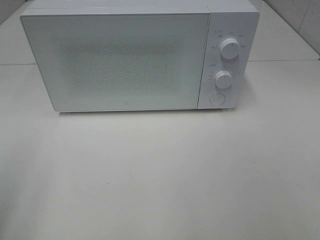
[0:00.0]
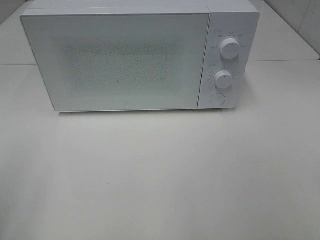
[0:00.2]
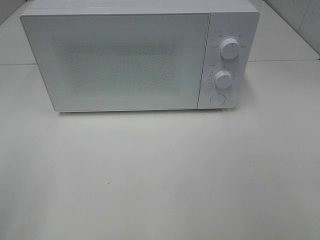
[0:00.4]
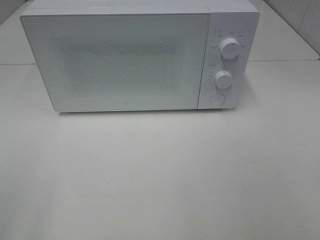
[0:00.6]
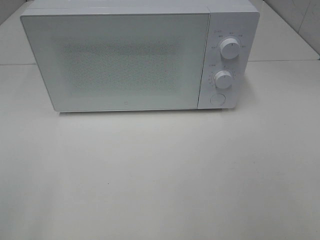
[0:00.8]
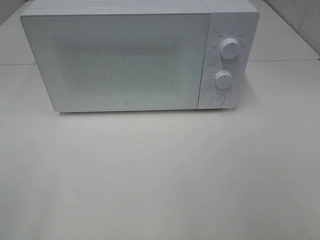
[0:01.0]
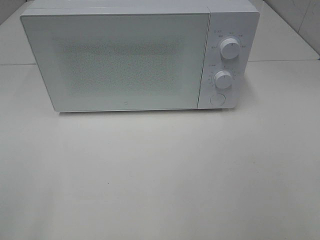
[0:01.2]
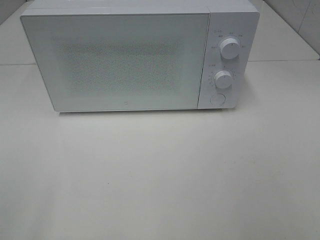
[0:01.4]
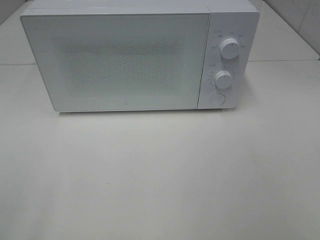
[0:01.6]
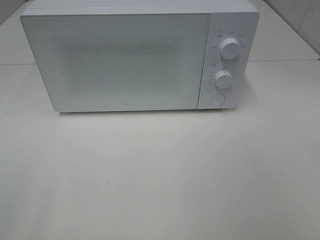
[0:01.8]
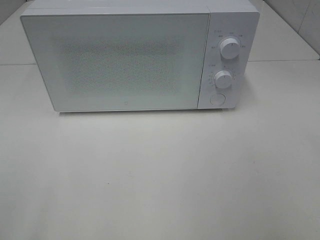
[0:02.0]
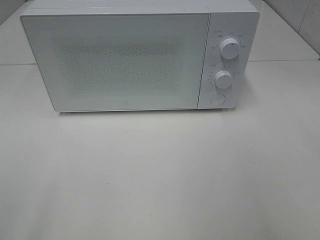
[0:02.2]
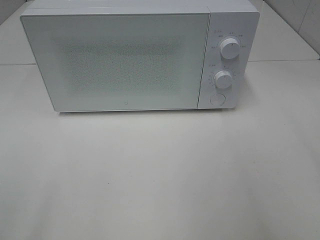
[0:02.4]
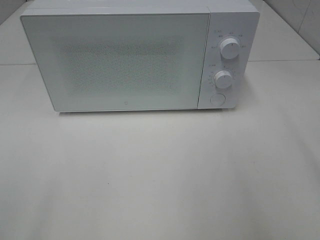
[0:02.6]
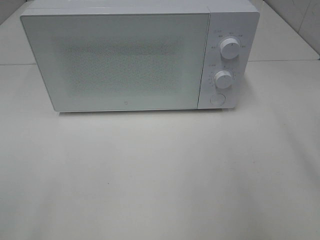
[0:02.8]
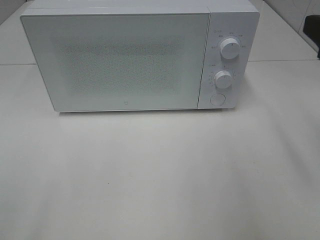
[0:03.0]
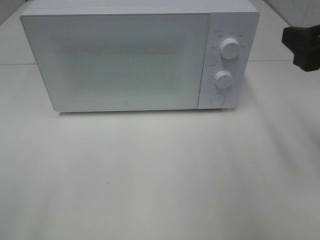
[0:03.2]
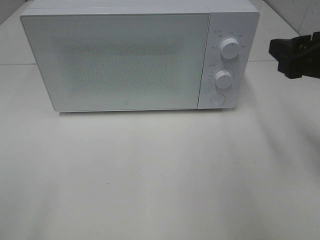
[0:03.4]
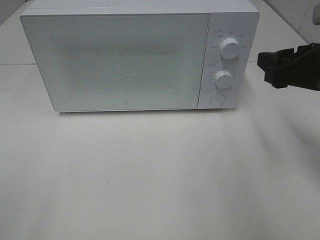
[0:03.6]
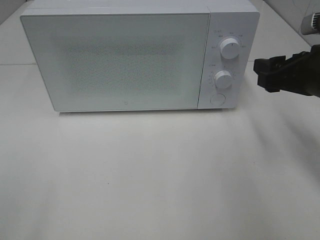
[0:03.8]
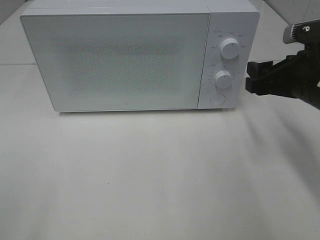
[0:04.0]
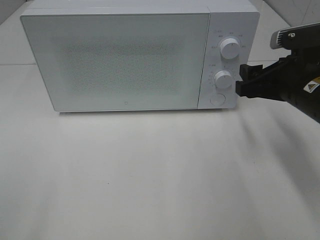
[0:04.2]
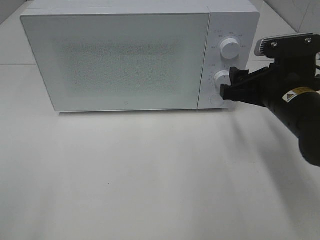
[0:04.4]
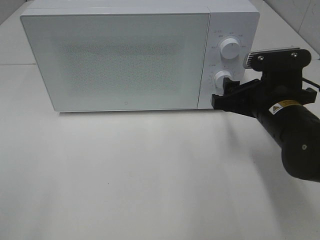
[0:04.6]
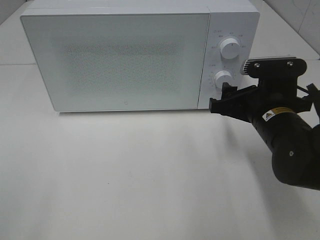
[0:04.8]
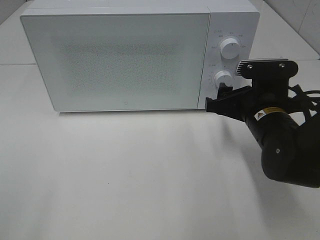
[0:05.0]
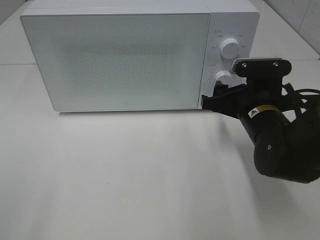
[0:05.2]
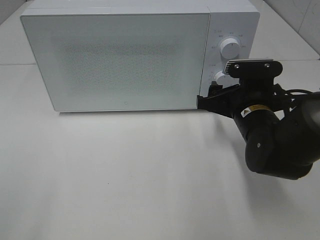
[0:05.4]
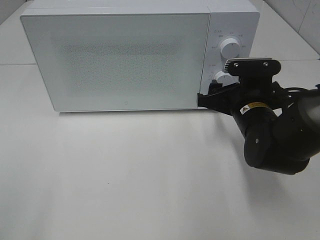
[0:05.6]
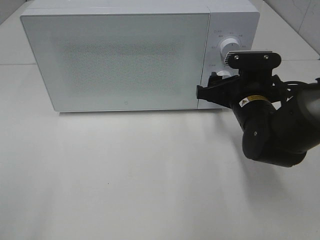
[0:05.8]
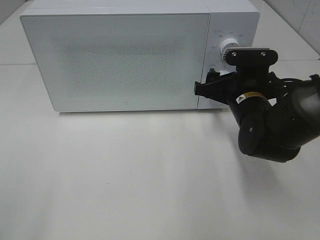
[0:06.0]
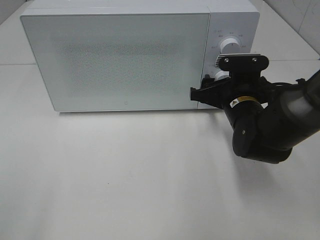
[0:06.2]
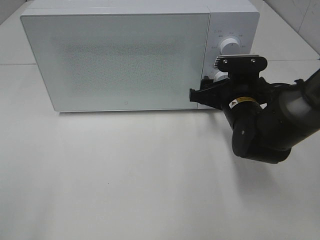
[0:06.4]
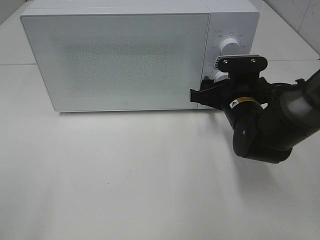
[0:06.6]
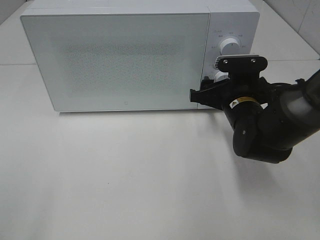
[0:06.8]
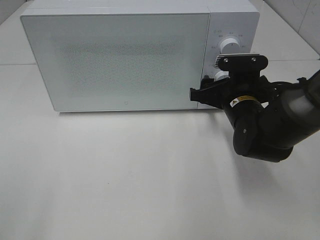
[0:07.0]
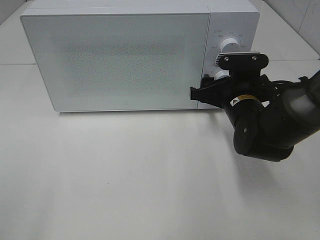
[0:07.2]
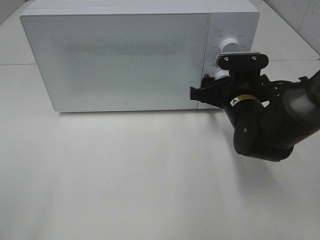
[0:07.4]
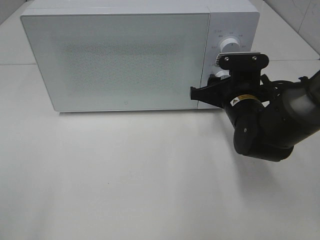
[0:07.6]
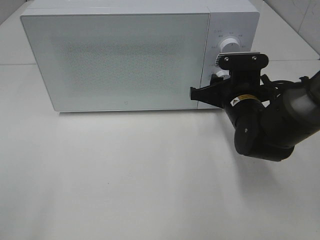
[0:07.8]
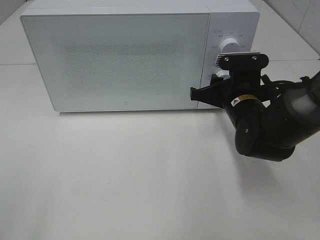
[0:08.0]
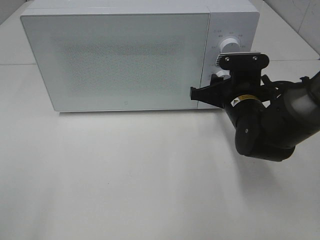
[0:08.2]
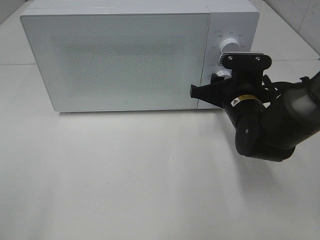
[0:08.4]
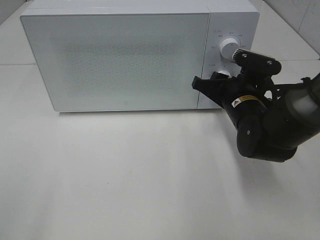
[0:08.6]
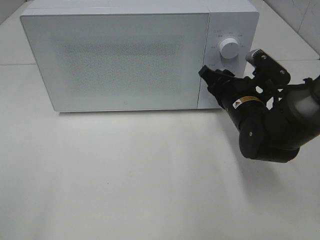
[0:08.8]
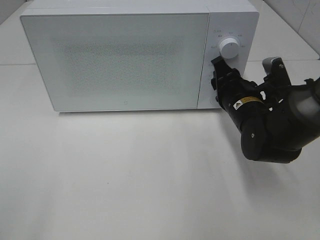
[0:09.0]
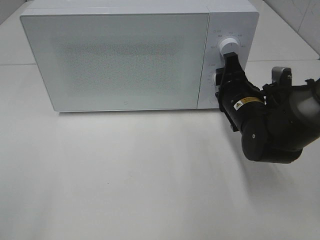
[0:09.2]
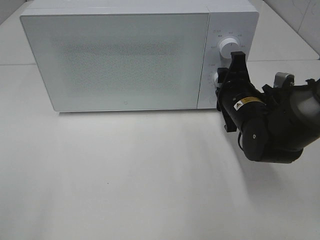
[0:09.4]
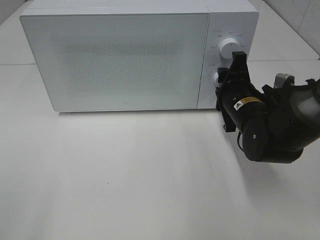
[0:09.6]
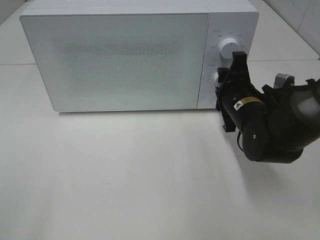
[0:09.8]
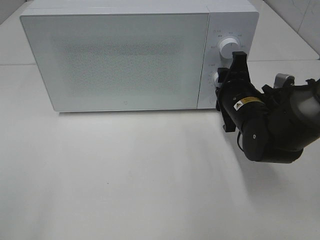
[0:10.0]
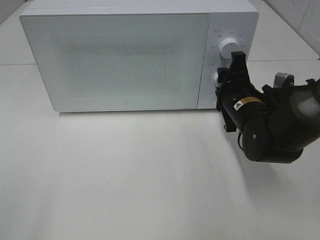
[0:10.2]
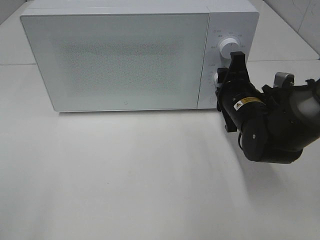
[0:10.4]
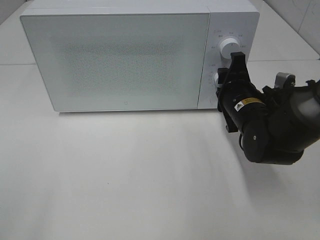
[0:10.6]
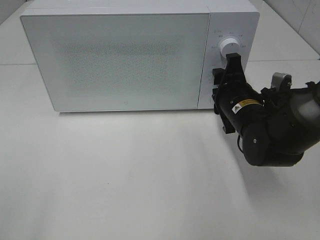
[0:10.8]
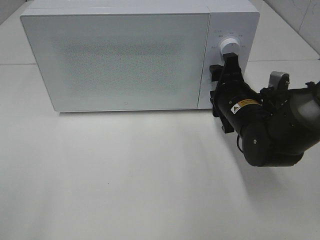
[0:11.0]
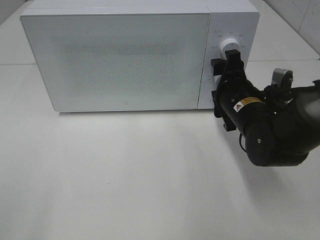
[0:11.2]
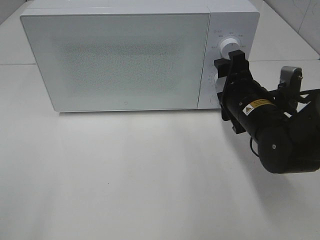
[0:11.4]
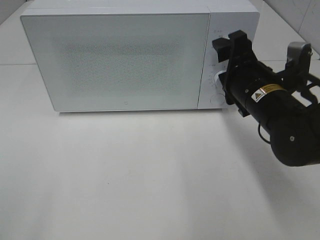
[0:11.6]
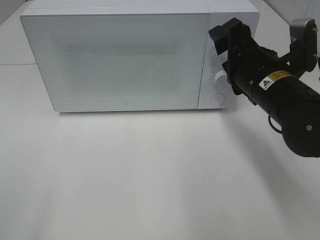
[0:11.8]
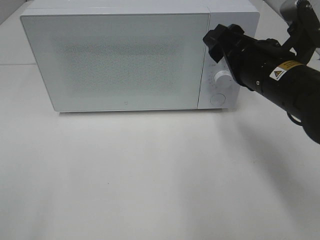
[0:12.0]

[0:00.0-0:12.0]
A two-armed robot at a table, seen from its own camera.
Task of the whole recording: Heat the burger.
Step, 0:00.0 to 0:10.8: Right hand: twist timer button.
0:03.0 to 0:04.4: The right gripper goes some 15 cm downward, forward and to the left.
0:04.4 to 0:06.0: The right gripper heads forward, covering about 5 cm.
0:06.0 to 0:07.6: The grippers stay close to where they were, moving slightly.
0:10.4 to 0:12.0: The right gripper heads upward and backward, covering approximately 10 cm.

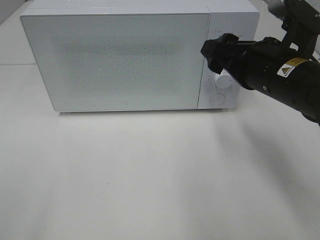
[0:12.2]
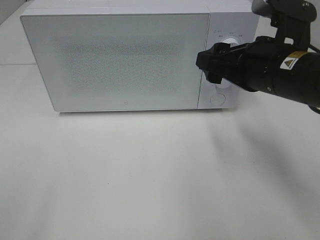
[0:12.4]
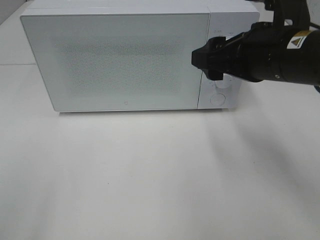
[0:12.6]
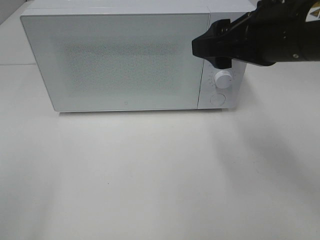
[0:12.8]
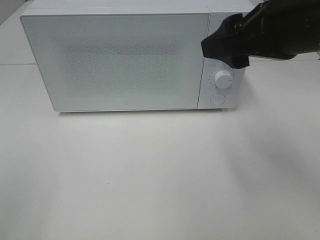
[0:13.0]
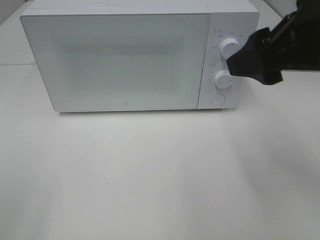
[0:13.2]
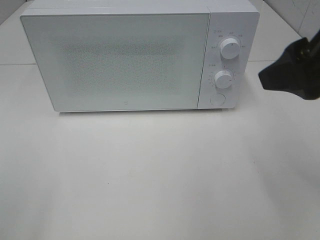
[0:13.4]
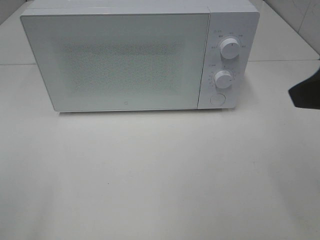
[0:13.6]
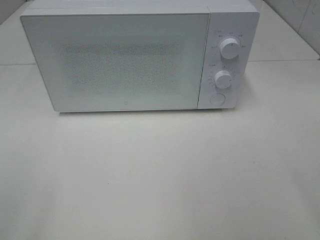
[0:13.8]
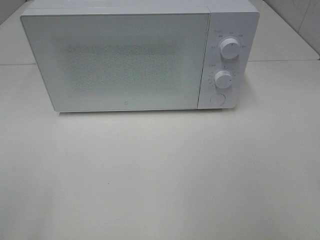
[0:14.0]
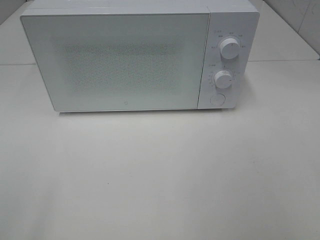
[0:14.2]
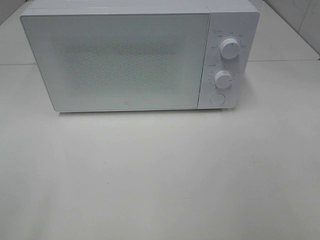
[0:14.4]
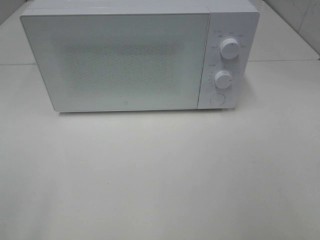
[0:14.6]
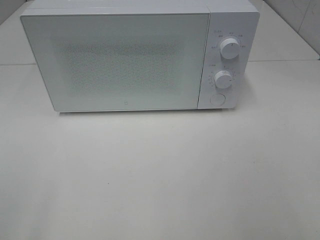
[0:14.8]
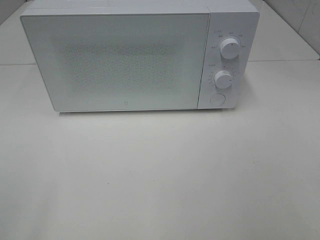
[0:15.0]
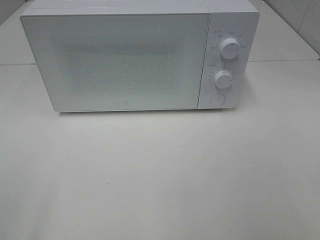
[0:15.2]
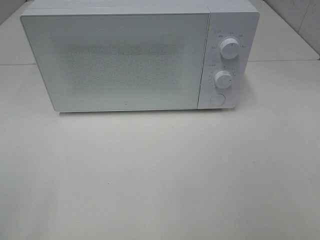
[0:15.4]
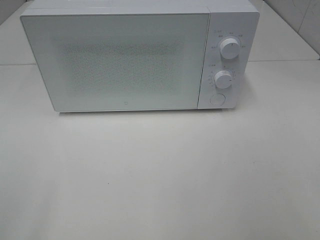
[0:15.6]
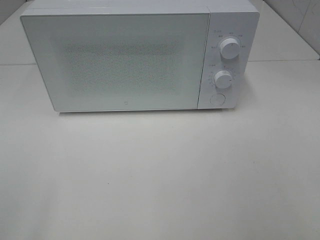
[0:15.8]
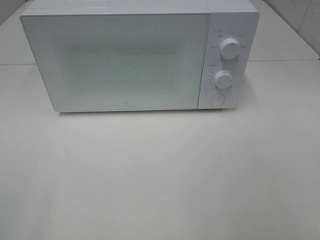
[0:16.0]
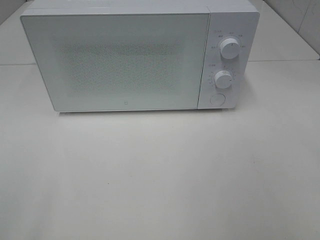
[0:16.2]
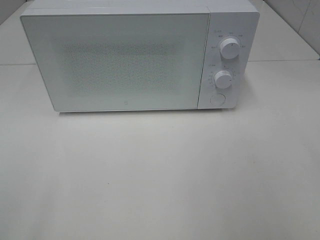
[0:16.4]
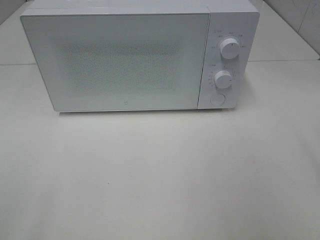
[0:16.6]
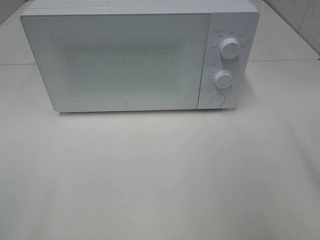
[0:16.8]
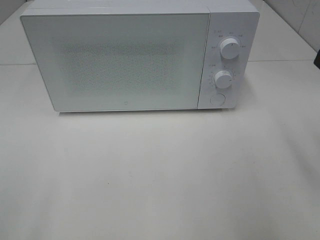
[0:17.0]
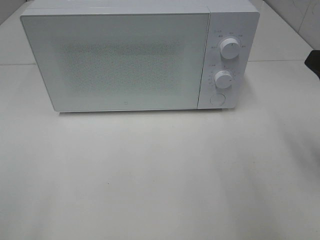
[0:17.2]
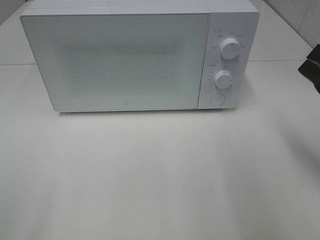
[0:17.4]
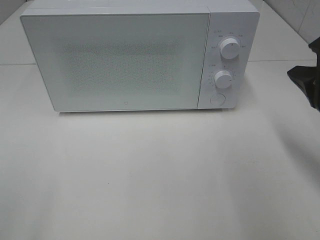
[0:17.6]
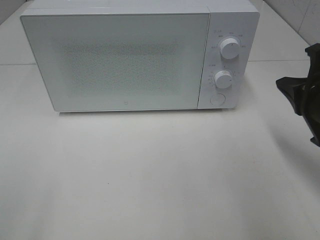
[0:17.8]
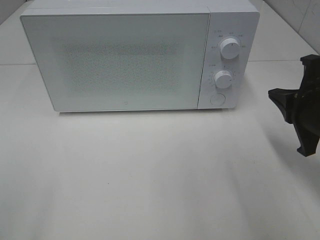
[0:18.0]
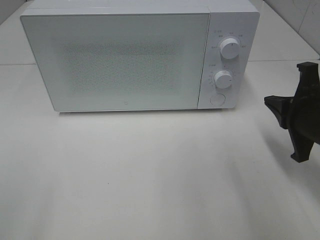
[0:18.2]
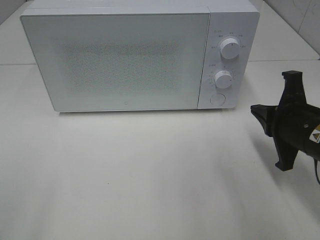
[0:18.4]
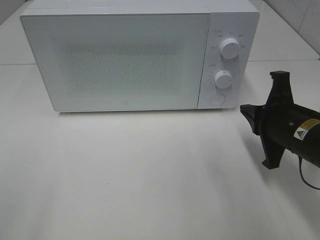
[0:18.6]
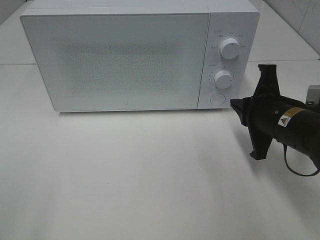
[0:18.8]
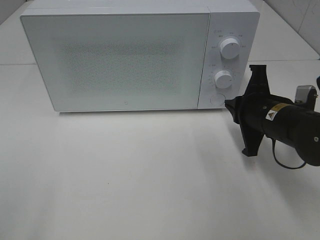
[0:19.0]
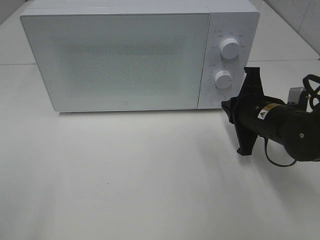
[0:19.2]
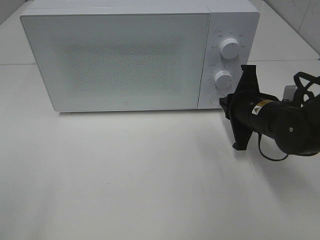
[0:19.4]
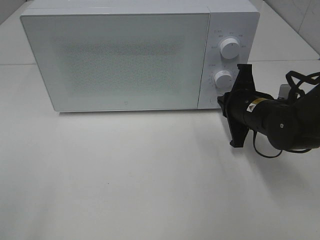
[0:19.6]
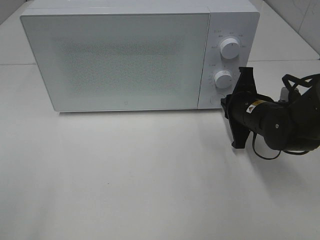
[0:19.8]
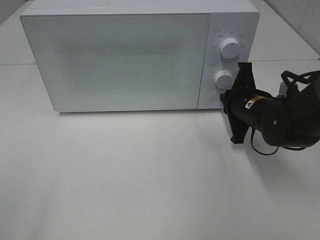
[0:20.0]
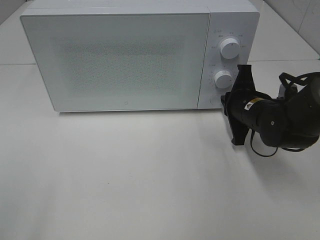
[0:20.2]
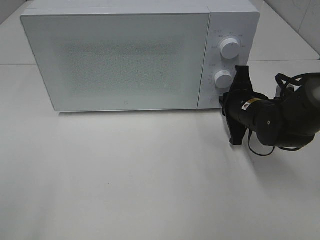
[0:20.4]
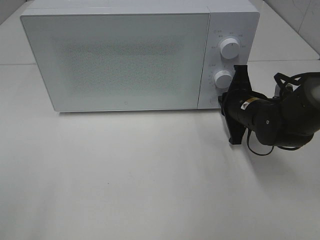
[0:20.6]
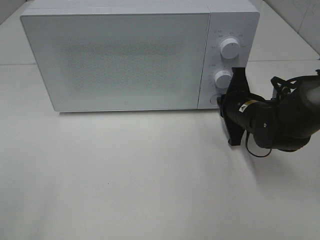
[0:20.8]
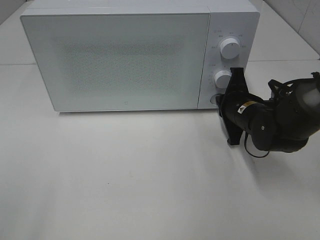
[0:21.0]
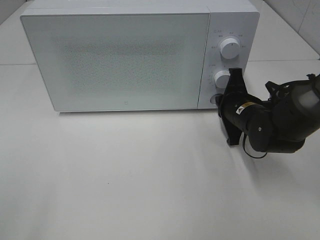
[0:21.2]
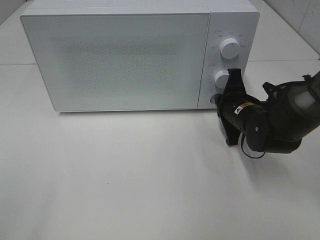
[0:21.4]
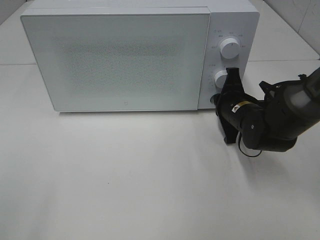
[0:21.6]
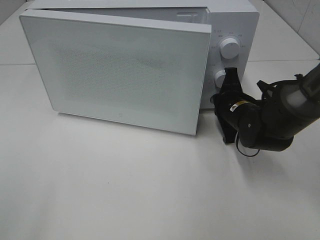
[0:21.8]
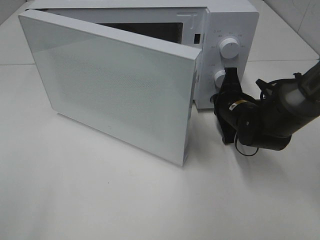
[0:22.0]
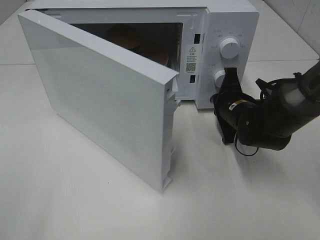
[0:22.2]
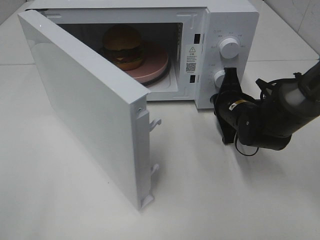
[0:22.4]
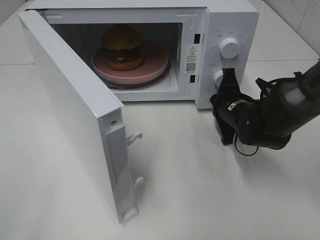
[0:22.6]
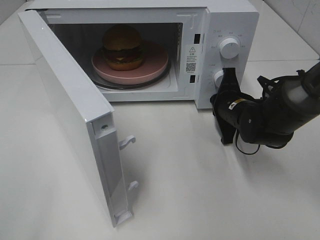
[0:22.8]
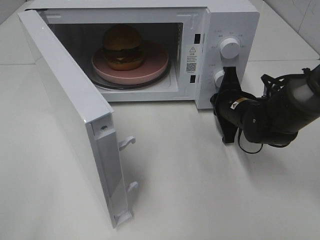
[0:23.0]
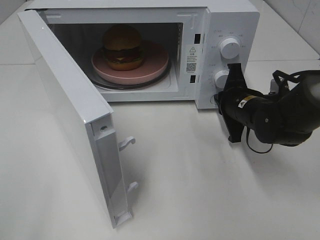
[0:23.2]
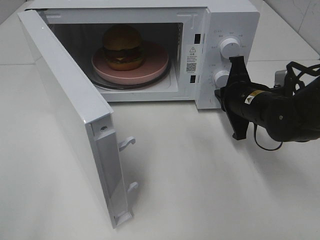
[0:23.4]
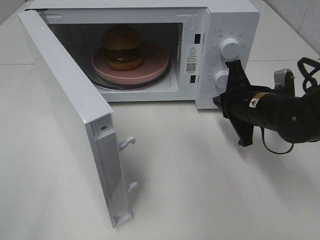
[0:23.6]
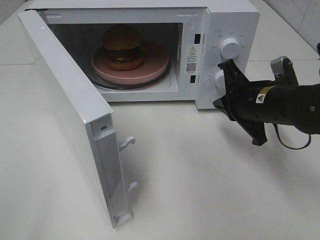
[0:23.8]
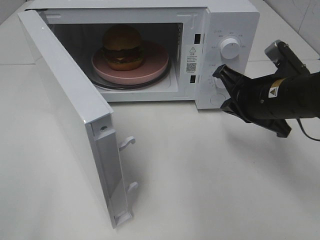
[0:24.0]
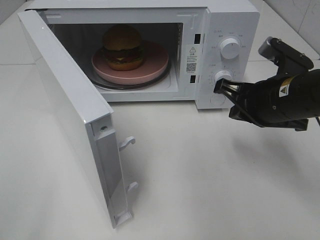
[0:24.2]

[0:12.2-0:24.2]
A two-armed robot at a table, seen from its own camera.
Task of the whole recording: Heat the burger.
Step, 0:12.2 to 0:23.2: Right hand: press the switch.
0:12.2 to 0:13.8: The right gripper shifts about 20 cm backward, upward and to the right.
0:16.6 to 0:18.2: The right gripper travels downward and forward by about 20 cm, and closes its fingers.
0:18.2 to 0:19.8: The right gripper heads forward, to the left and downward, covering about 10 cm.
0:19.8 to 0:21.2: There are only small adjustments of the grippers.
0:22.6 to 0:24.2: The right gripper shifts some 15 cm upward and backward.
